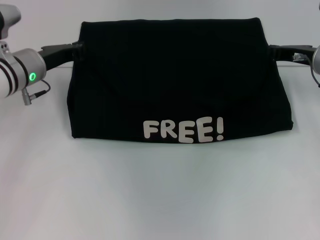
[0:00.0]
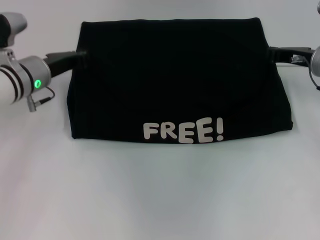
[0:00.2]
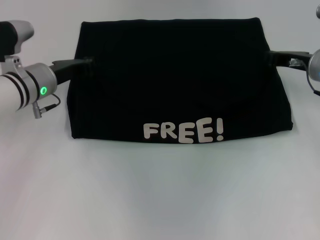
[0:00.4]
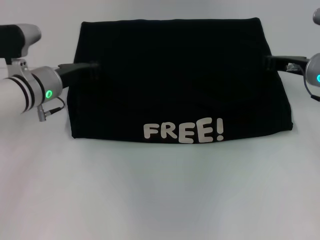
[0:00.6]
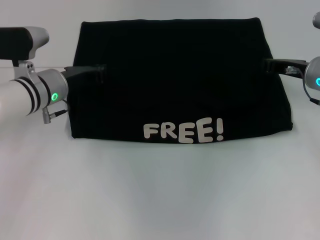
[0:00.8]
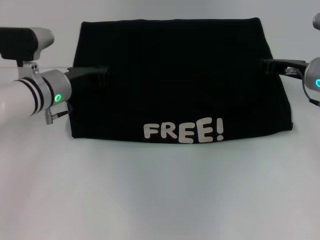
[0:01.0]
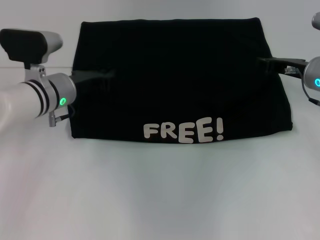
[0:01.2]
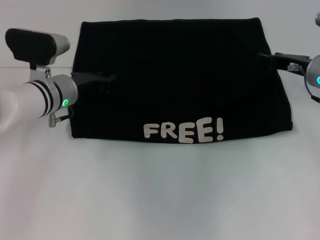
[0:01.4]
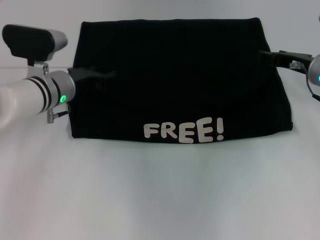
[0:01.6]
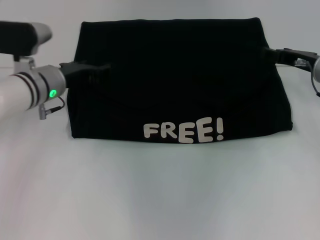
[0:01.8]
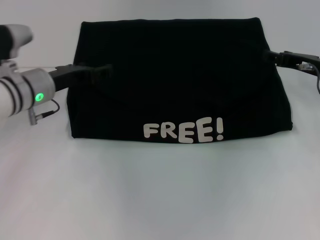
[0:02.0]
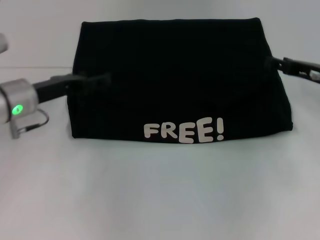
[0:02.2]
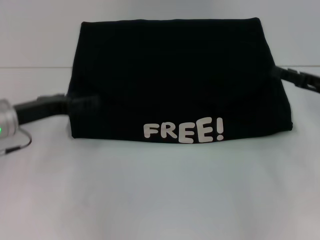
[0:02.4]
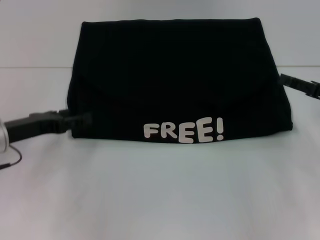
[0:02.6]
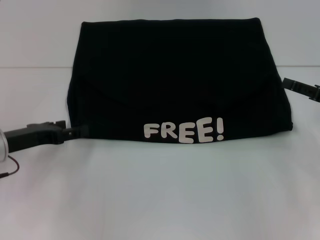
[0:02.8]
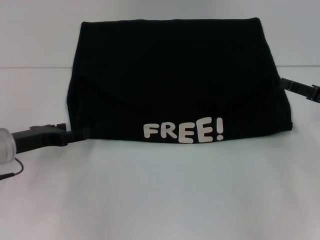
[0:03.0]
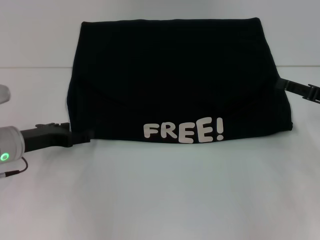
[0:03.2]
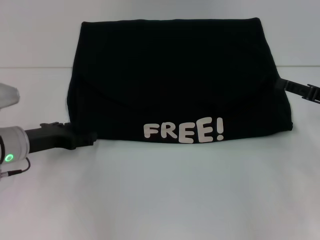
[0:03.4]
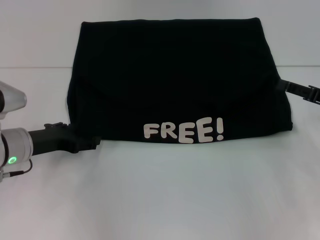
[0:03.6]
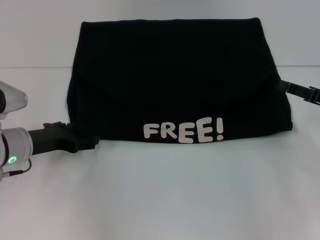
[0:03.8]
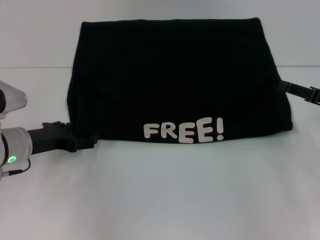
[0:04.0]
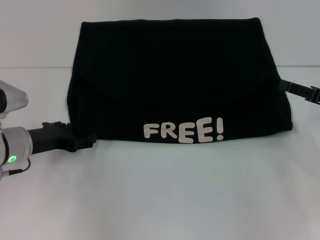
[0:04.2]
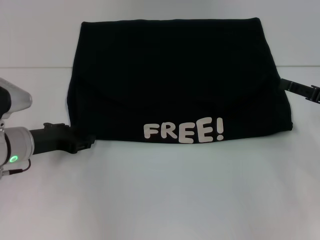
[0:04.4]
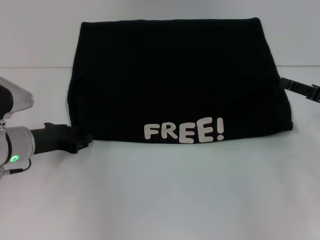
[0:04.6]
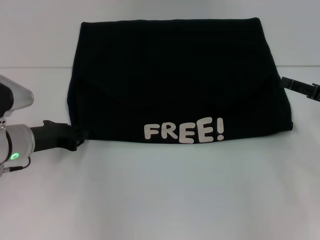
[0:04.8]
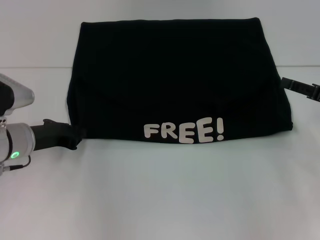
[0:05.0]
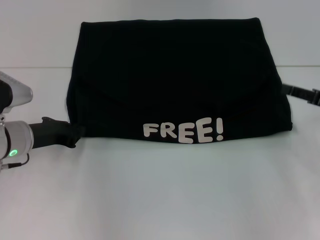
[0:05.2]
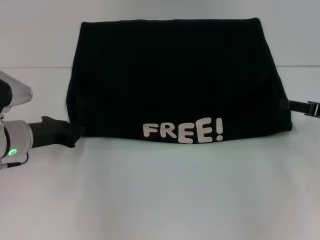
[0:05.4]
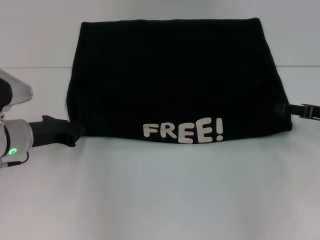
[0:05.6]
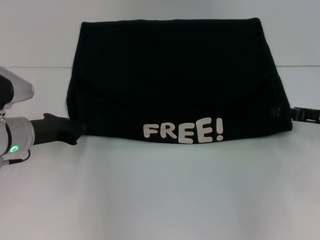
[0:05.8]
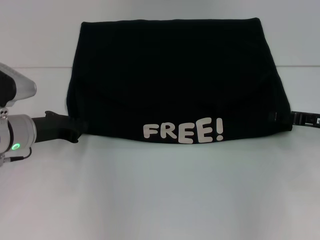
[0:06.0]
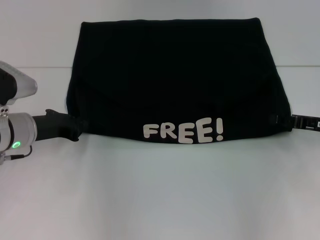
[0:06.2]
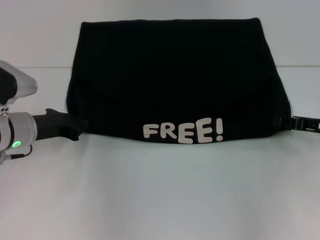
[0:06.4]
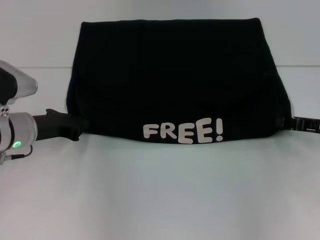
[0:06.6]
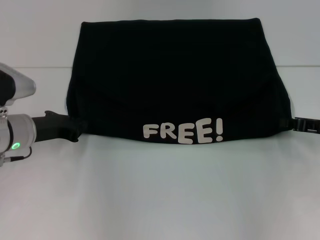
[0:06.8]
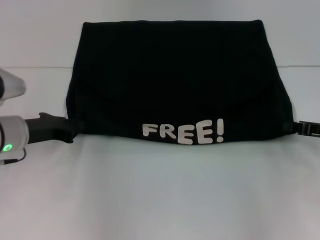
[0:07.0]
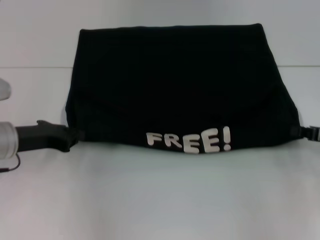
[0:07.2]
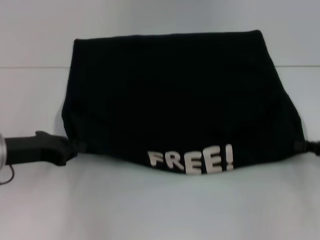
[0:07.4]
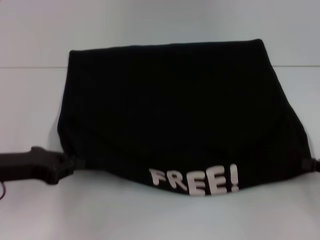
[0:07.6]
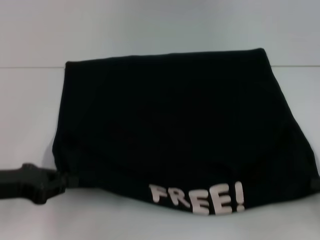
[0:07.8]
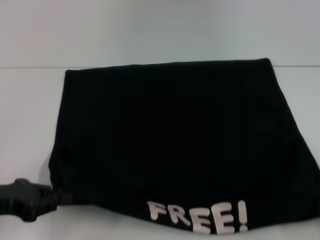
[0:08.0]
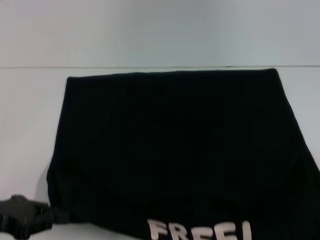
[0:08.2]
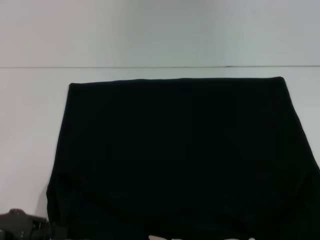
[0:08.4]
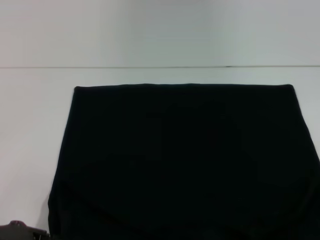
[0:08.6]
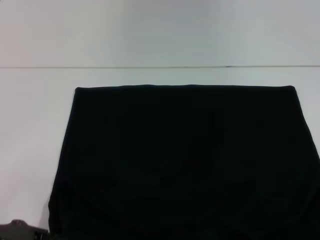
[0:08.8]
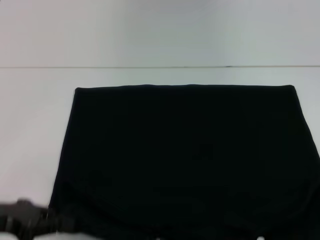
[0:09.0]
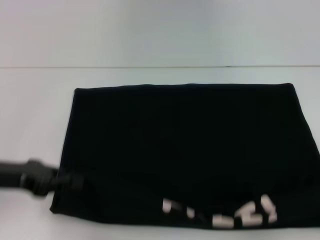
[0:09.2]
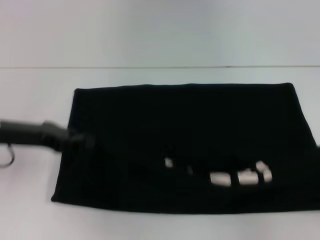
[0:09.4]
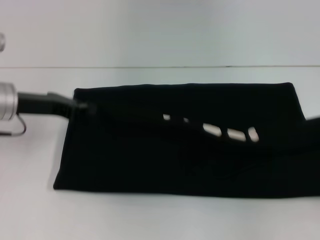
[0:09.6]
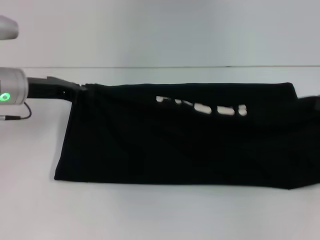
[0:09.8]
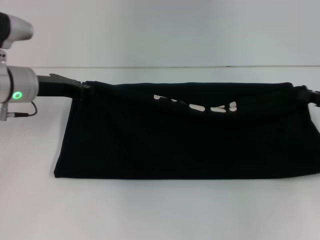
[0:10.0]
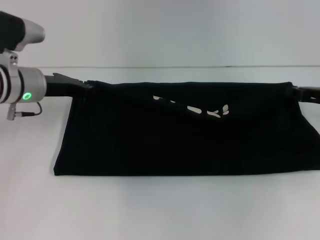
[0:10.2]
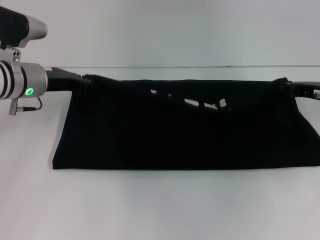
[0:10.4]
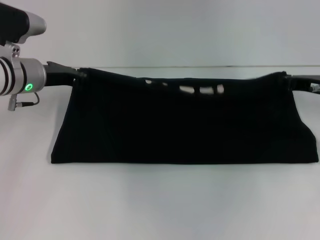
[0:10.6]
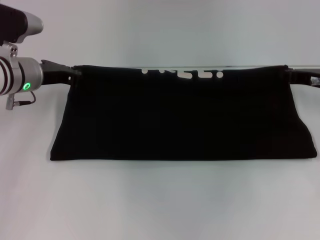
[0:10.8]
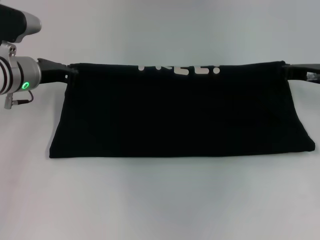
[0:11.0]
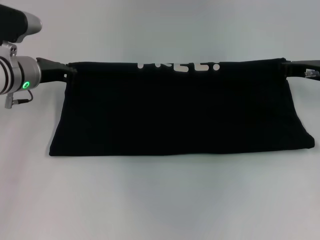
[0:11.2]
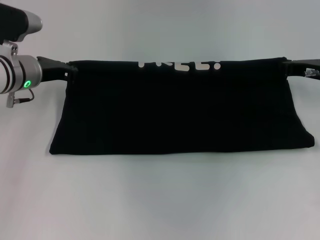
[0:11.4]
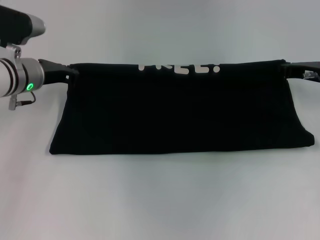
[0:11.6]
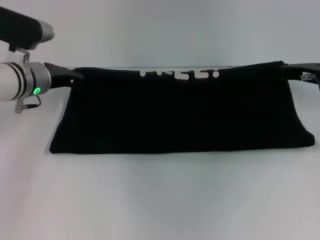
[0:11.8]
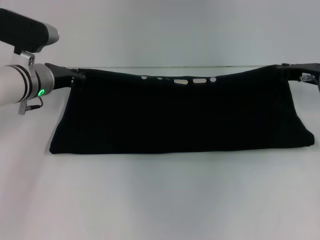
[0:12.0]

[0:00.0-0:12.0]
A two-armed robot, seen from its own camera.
Step, 0:01.8 to 0:08.4: Pull the clothes with your left hand.
Step, 0:01.8 to 0:08.4: Pull the clothes with your right hand.
0:00.0 to 0:01.6: The left gripper shifts by approximately 5 cm. Meanwhile the right gripper opens up.
0:01.6 to 0:03.0: The left gripper heads backward and to the left, covering about 15 cm, and opens its fingers. Meanwhile the right gripper shifts roughly 10 cm backward and to the right.
0:03.0 to 0:04.4: The grippers move only a little.
0:04.4 to 0:06.0: The left gripper closes its fingers.
0:06.0 to 0:07.6: The grippers both shift backward by some 10 cm. The right gripper closes its fingers.
0:07.6 to 0:09.0: The right gripper goes about 10 cm backward. Meanwhile the left gripper travels backward by some 5 cm.
0:09.0 to 0:10.4: The left gripper moves forward, approximately 20 cm, while the right gripper moves forward and to the left, some 25 cm.
0:10.4 to 0:12.0: The grippers make only small movements.

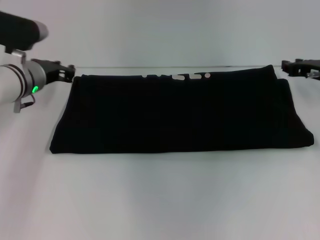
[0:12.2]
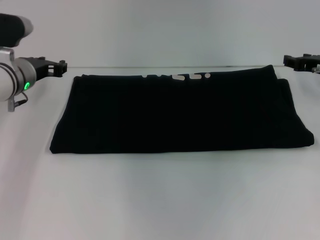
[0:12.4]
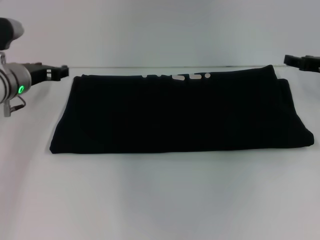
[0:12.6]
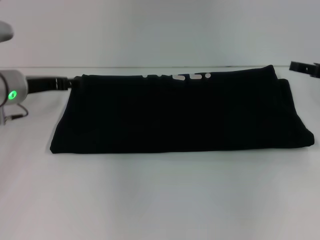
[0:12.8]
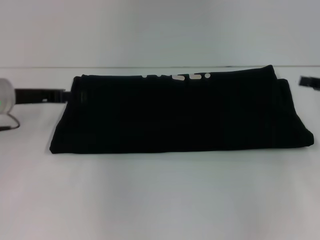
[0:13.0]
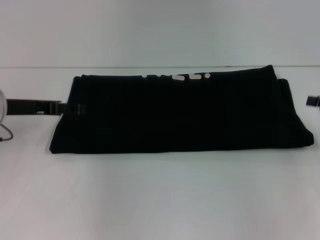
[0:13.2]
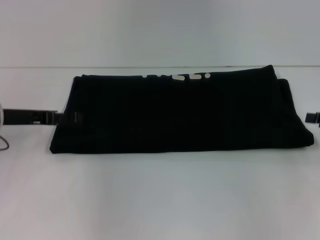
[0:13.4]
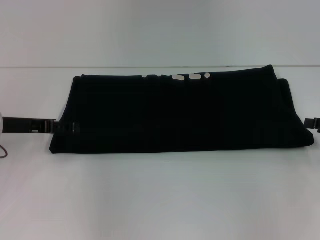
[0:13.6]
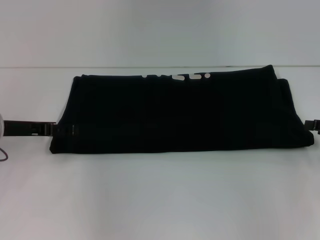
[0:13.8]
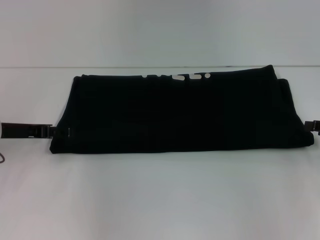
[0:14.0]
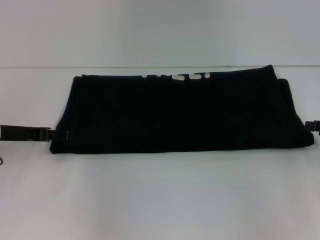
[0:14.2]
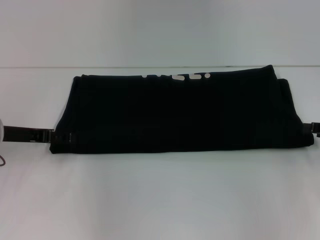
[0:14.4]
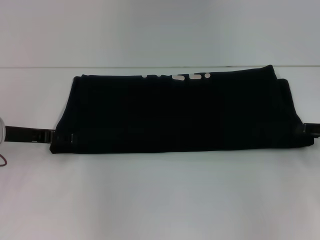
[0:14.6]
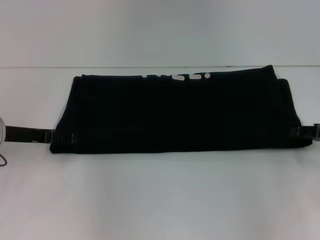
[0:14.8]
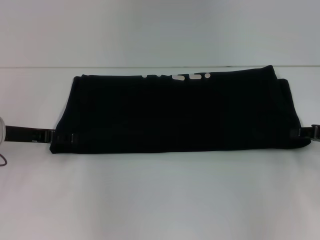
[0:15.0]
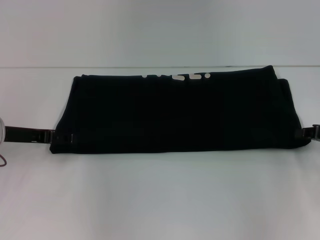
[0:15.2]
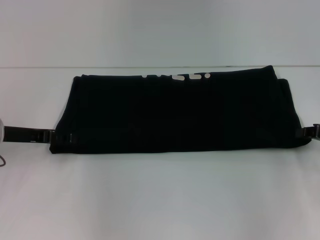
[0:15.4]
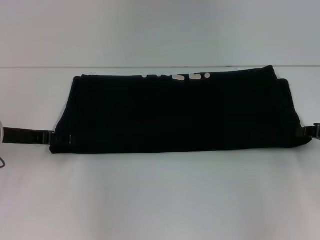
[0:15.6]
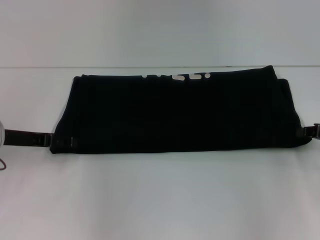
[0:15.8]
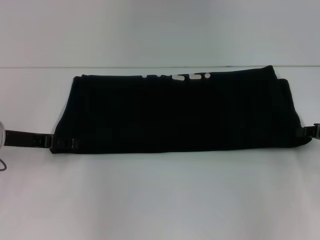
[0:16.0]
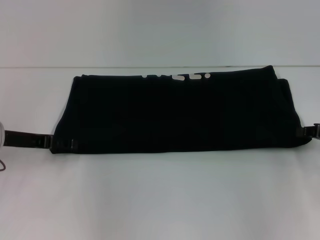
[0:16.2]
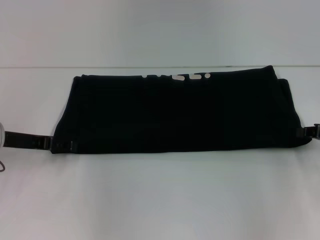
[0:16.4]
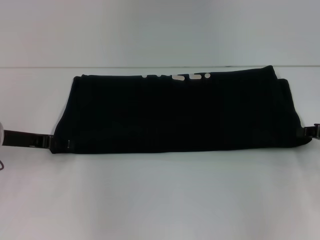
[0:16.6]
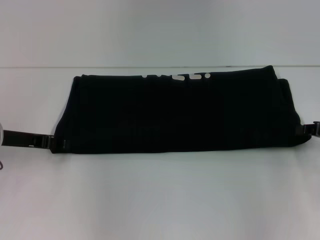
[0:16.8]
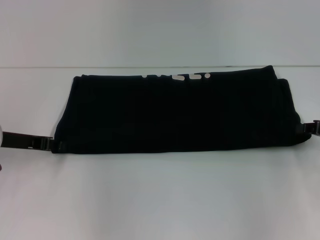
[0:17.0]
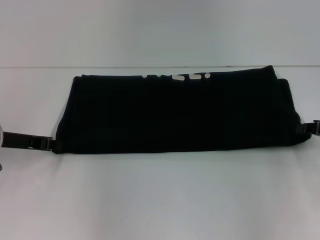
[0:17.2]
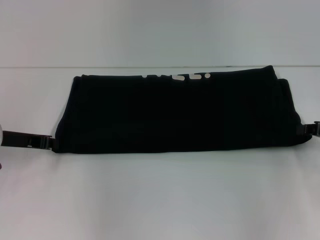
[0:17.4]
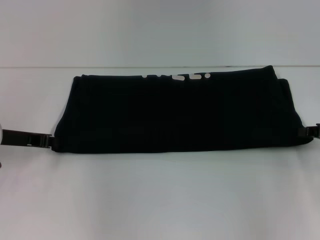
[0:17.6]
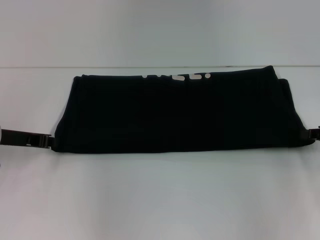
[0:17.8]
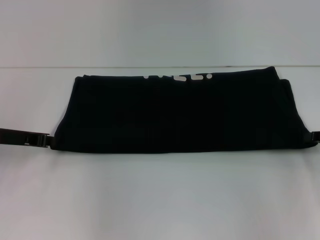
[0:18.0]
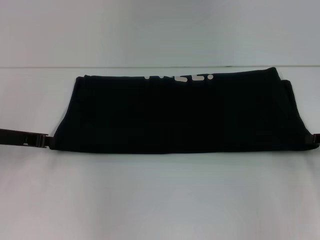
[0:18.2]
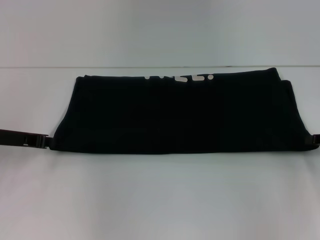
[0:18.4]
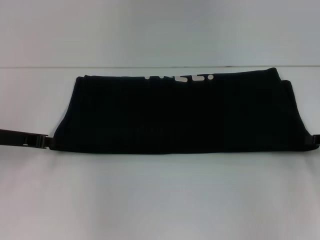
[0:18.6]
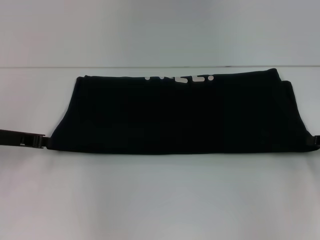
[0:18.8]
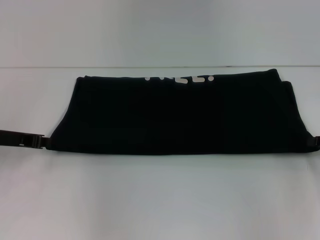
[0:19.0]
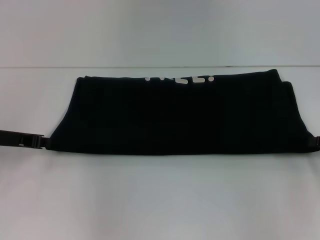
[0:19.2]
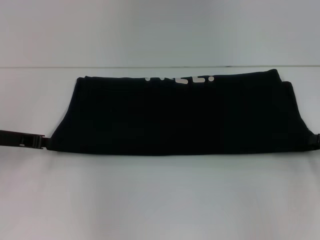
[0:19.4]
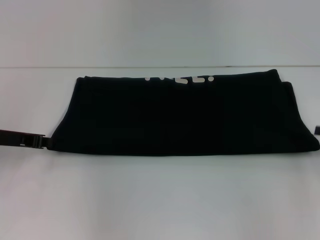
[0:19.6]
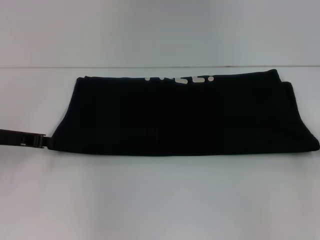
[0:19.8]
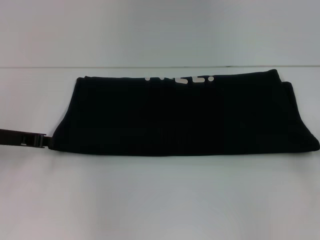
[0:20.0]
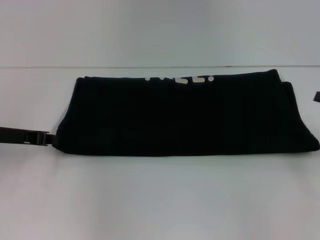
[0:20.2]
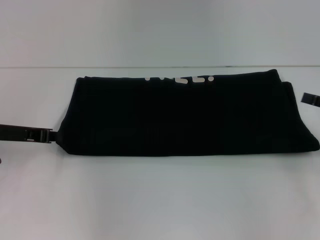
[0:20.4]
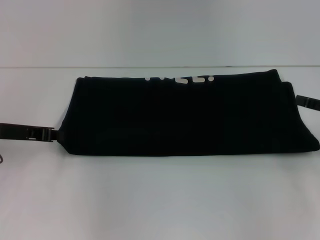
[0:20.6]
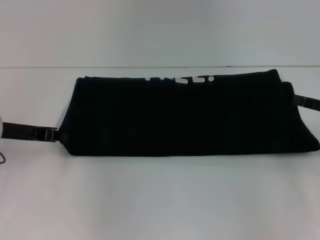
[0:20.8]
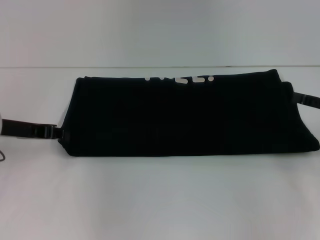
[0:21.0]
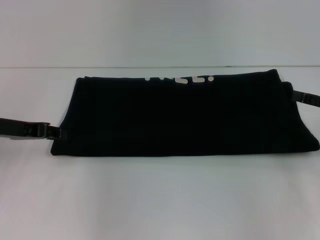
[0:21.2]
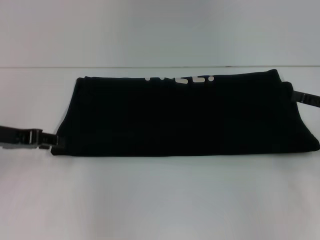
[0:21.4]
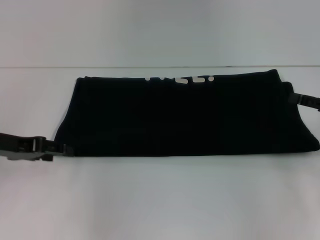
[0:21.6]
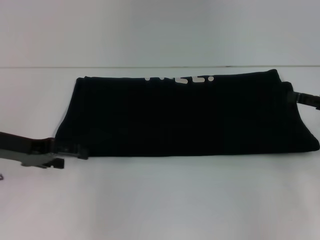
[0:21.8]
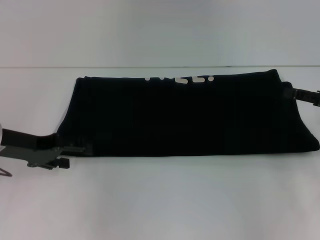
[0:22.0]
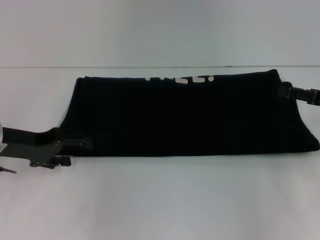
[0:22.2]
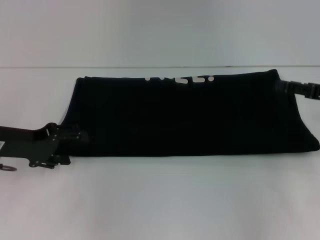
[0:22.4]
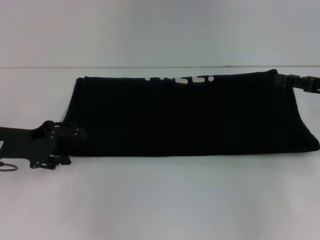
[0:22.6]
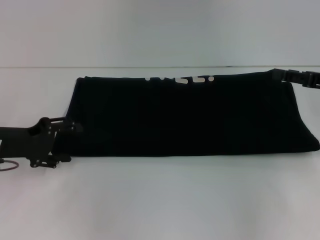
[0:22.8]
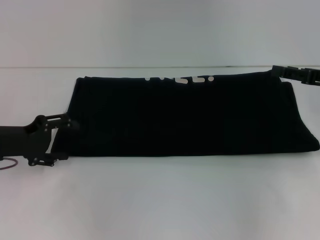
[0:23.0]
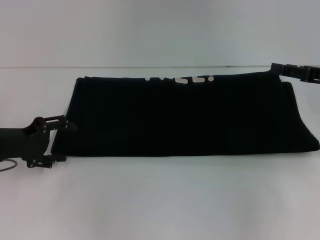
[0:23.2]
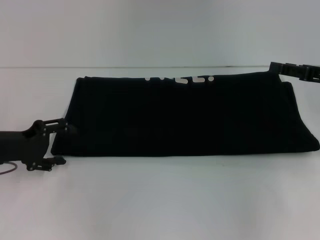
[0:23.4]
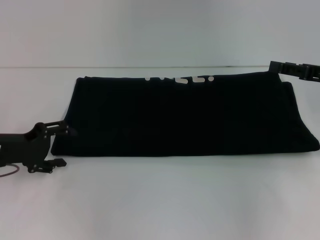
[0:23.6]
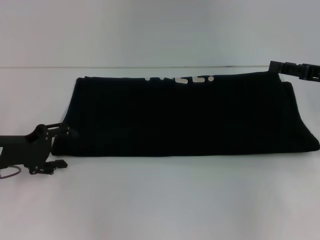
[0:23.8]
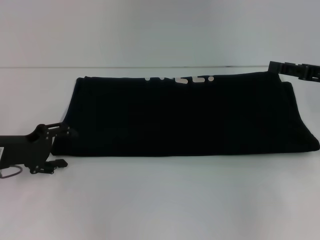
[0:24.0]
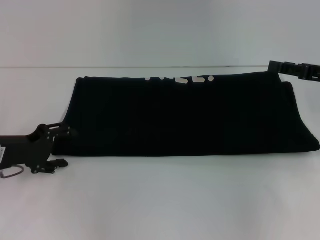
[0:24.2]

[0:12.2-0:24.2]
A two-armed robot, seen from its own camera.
0:12.2 to 0:13.8: The left gripper moves backward and to the left, roughly 10 cm, and opens, while the right gripper shifts roughly 15 cm backward and to the right, and opens up.
0:15.2 to 0:16.6: Both grippers stay about where they are.
0:16.6 to 0:18.2: The left gripper closes its fingers.
0:18.2 to 0:19.8: The grippers stay close to where they were, moving slightly.
0:21.2 to 0:22.6: The left gripper opens its fingers.
0:22.6 to 0:24.2: The grippers make only small movements.
